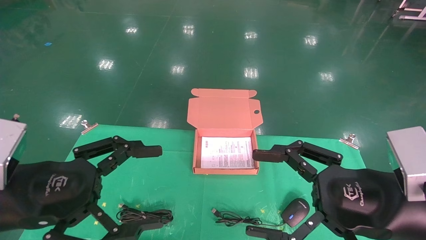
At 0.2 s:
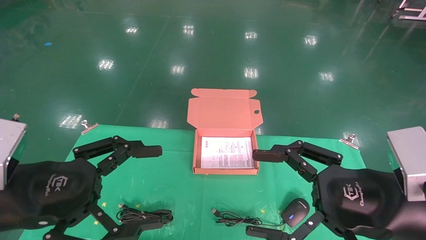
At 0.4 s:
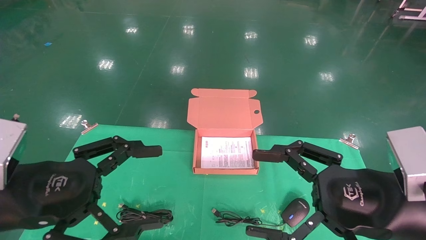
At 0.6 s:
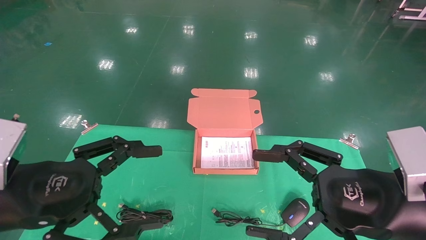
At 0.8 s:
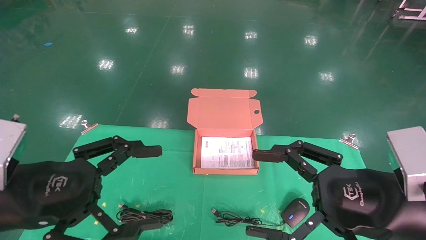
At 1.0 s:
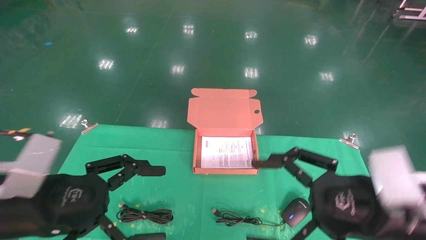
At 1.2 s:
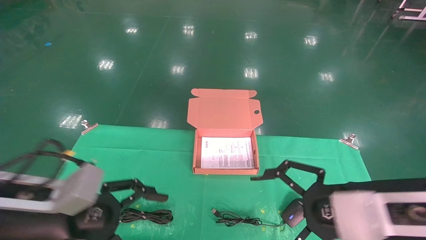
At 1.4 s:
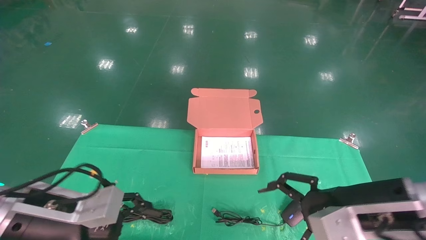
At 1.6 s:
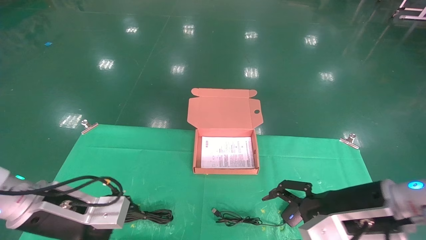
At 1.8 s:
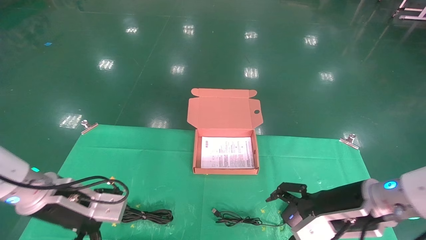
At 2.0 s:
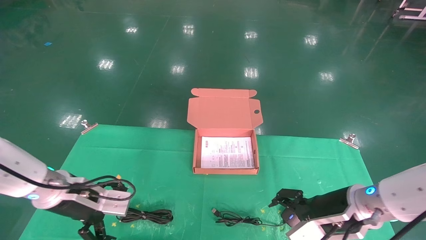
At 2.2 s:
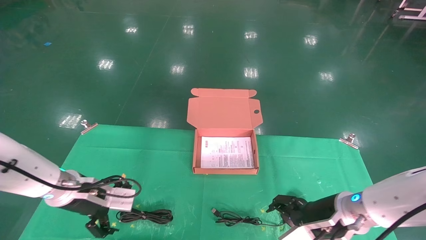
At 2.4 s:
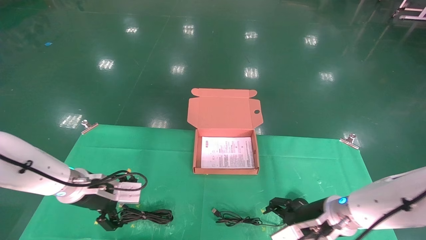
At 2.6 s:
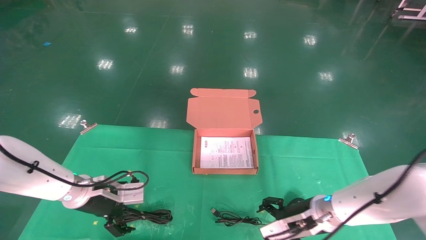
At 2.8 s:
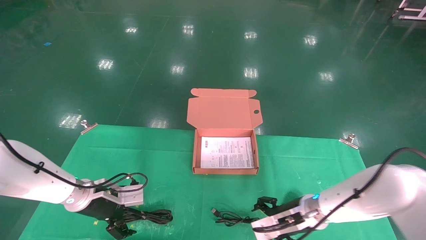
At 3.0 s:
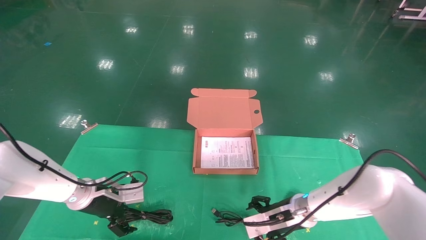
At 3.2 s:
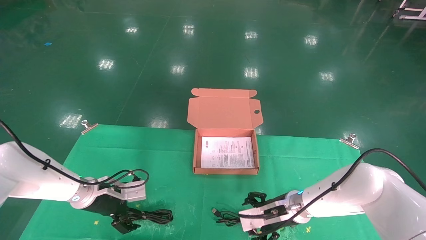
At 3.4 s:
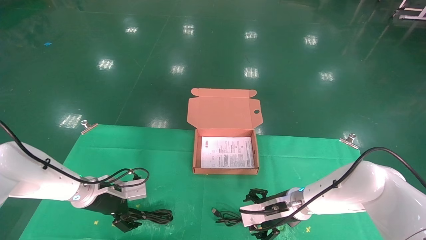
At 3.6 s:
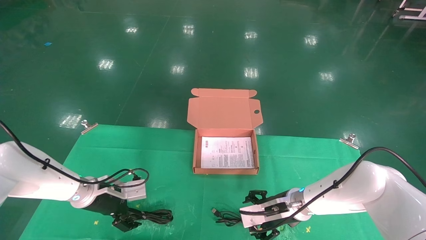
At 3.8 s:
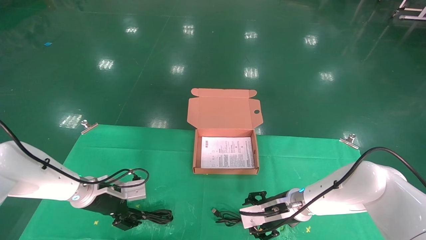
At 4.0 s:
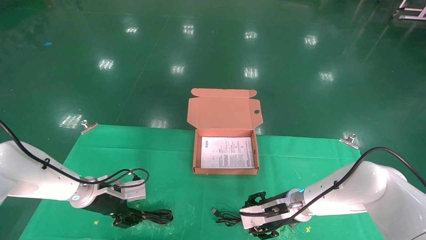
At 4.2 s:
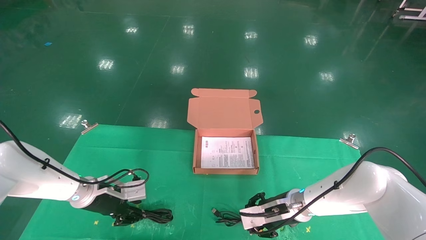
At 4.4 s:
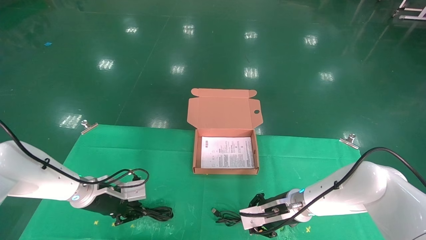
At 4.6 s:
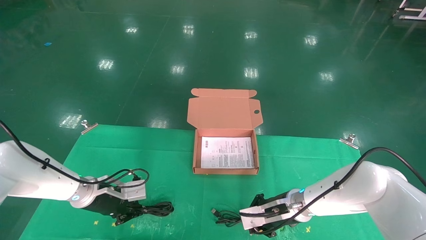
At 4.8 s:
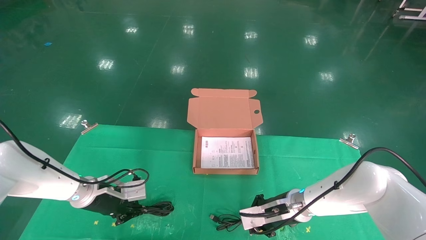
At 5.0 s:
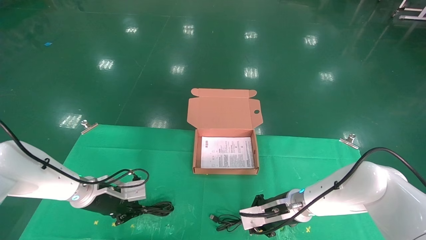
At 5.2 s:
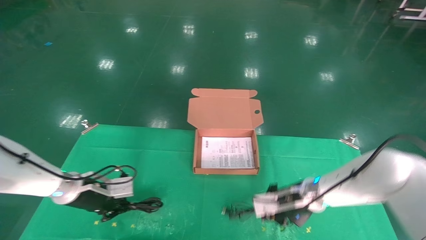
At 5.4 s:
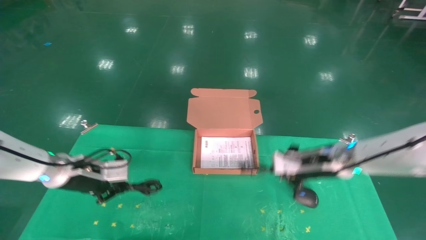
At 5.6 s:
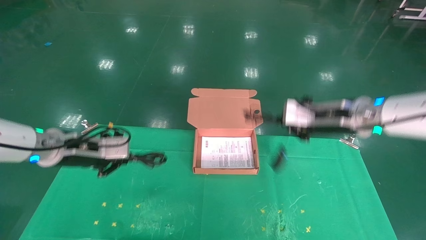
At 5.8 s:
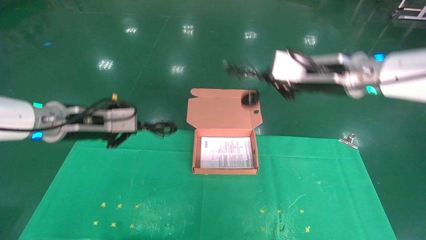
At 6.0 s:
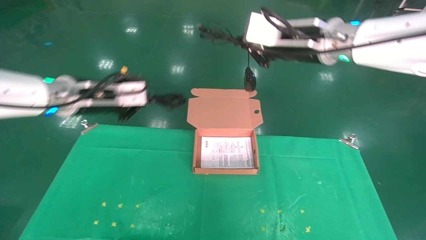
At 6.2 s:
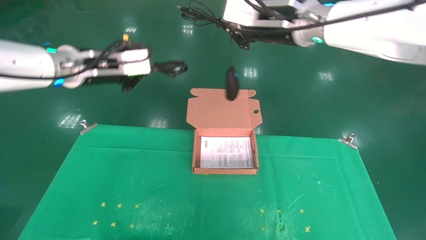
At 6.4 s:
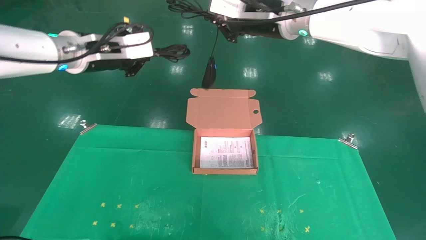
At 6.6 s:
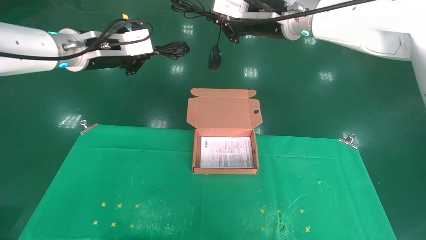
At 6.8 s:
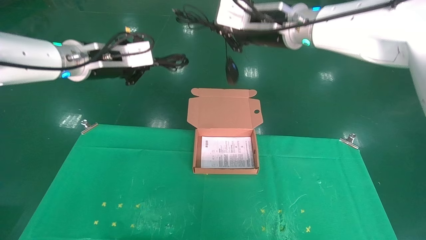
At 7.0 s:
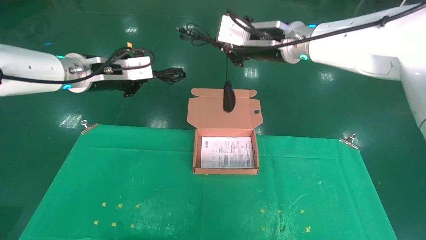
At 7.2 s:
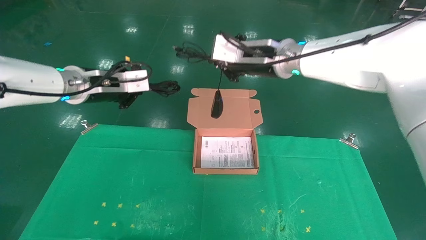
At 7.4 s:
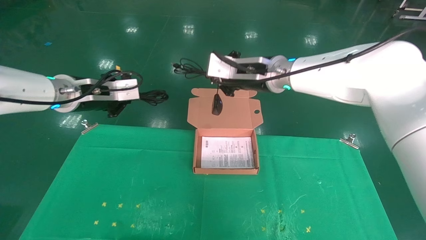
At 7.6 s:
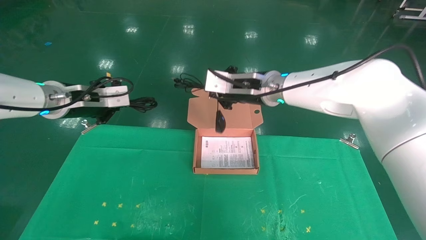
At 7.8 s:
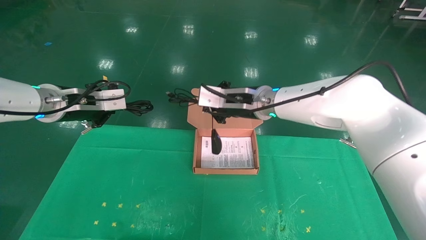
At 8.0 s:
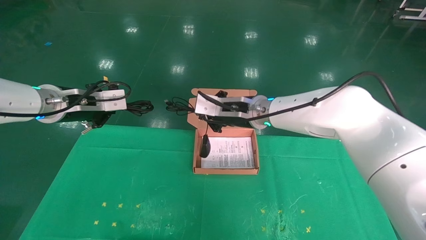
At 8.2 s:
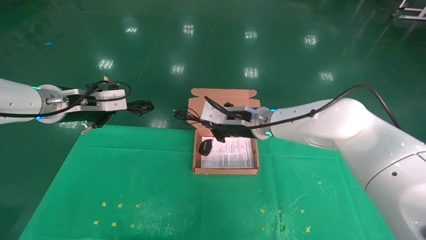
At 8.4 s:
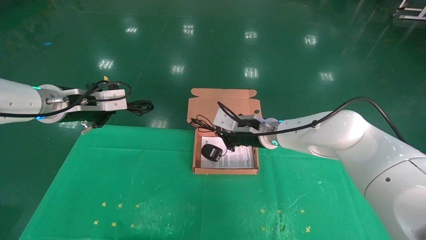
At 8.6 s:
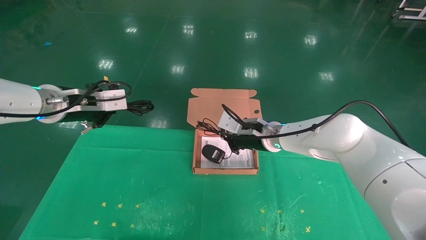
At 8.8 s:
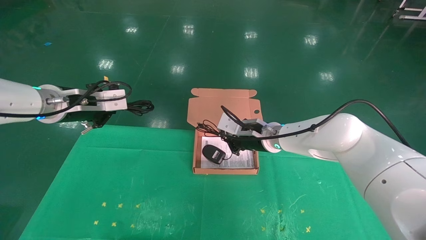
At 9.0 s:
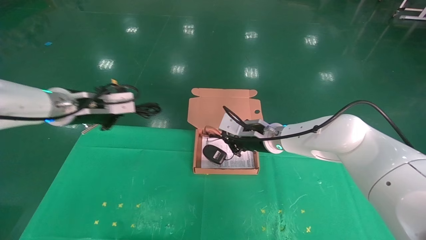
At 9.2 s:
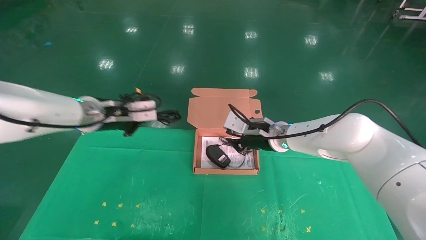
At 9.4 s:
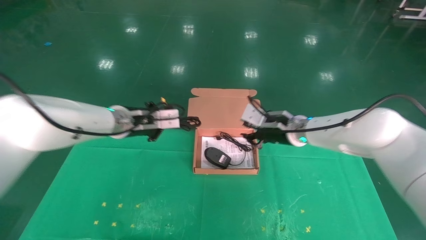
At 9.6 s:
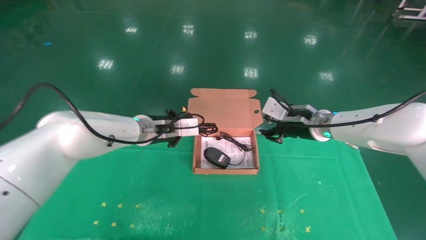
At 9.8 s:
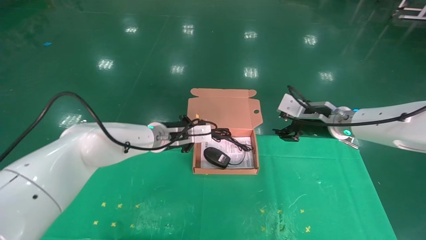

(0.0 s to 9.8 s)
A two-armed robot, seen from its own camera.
Task of the whole recording: grasp data cable left put into box grasp mouse right put into box.
Step, 0.8 s - 5.4 s: Grab and pick up both the mouse and power cord from the accessory packaging area at the same time.
0.0 s - 1.4 s: The left gripper heads forward and downward, covering about 10 cm, while the right gripper travels forward by some 5 cm.
1.4 s - 2.8 s: The grippers both shift forward and downward by approximately 20 cm.
2.8 s - 4.2 s: The left gripper closes its fingers. The right gripper closes.
4.2 s - 5.6 s: The right gripper is displaced upward by about 25 cm, and closes its fingers; the left gripper is displaced upward by approximately 15 cm, and closes its fingers.
5.6 s - 7.0 s: The left gripper travels upward by about 15 cm. The right gripper is displaced upward and to the left by approximately 15 cm.
7.0 s - 8.4 s: The right gripper goes about 20 cm downward. Meanwhile the left gripper shifts some 5 cm downward.
8.4 s - 9.8 s: The right gripper is displaced to the right by approximately 15 cm, and opens up. The left gripper travels to the right, downward and forward by roughly 20 cm.

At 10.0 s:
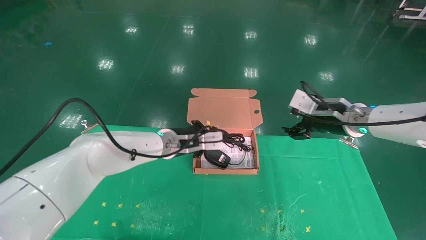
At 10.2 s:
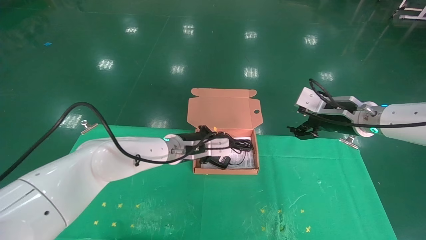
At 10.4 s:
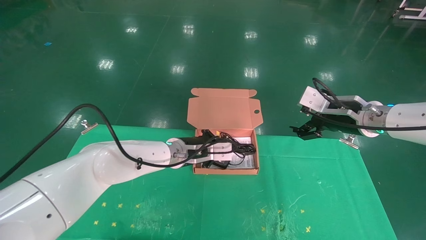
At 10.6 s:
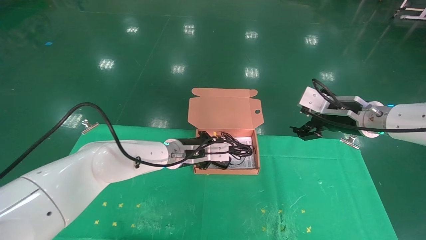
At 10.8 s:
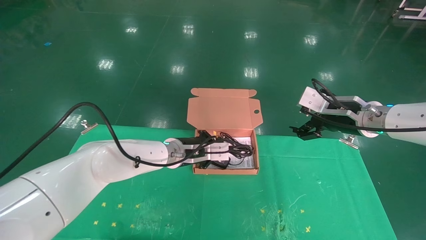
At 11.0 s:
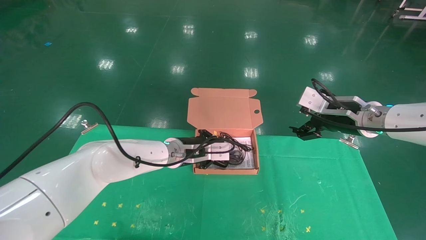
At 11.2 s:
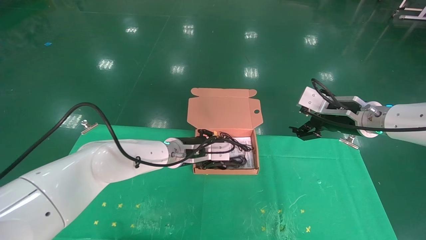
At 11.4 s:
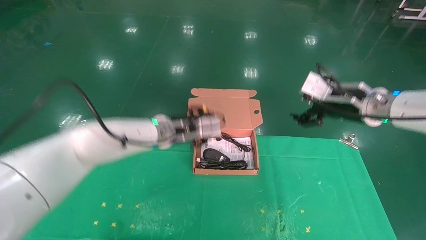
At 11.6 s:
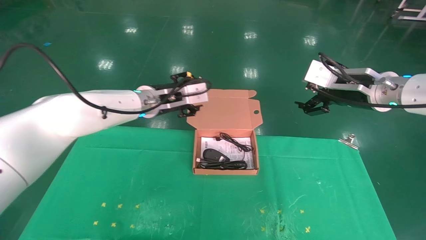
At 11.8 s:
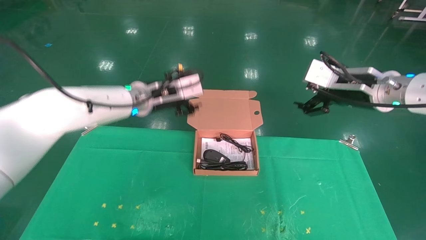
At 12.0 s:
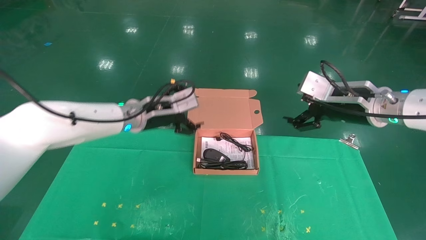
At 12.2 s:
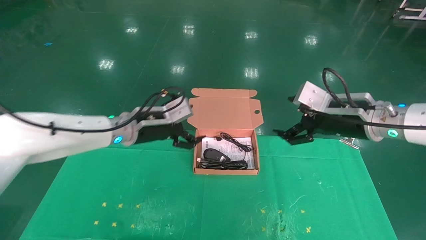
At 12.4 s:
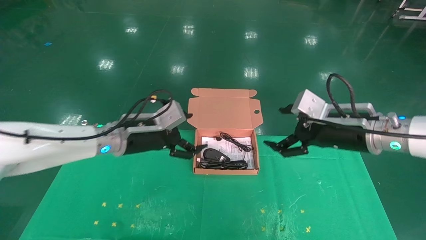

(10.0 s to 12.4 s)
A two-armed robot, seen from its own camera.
Task of the whole recording: grasp data cable left put into box grasp mouse right put into box.
10.0 s - 11.2 s: The grippers make only small movements.
11.2 s - 12.4 s: The right gripper moves backward, roughly 5 cm. Meanwhile the left gripper heads to the left and backward, covering about 10 cm, and opens its fingers.
